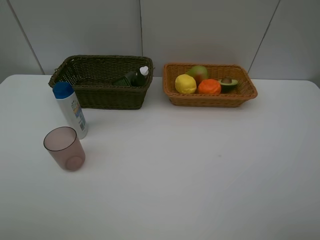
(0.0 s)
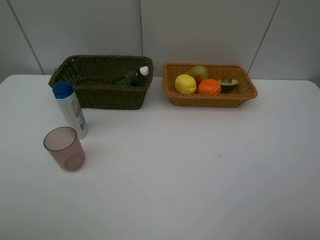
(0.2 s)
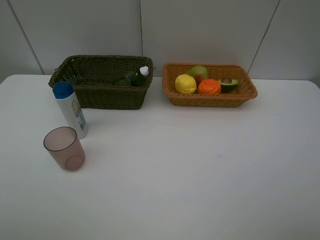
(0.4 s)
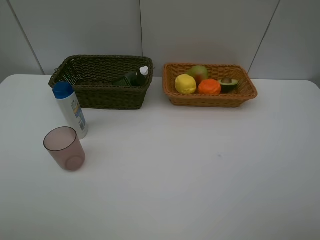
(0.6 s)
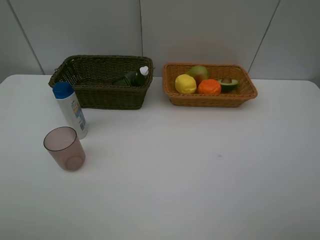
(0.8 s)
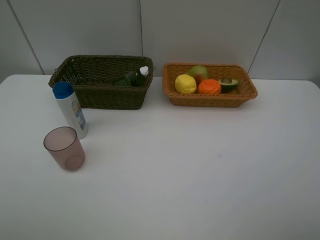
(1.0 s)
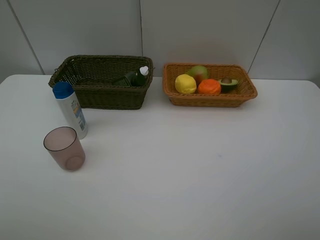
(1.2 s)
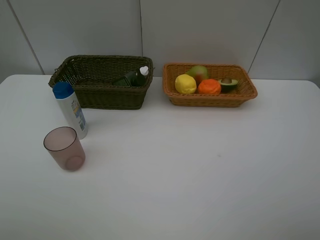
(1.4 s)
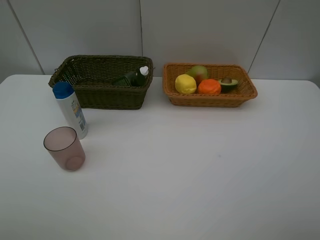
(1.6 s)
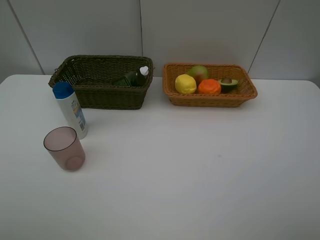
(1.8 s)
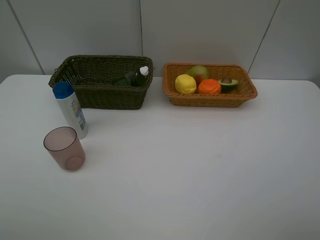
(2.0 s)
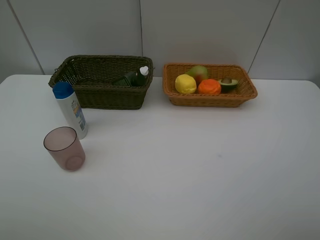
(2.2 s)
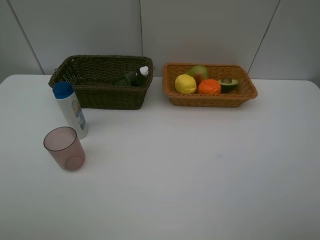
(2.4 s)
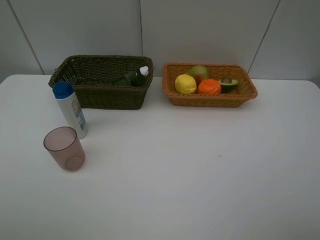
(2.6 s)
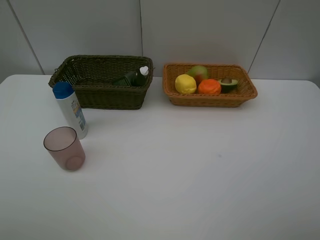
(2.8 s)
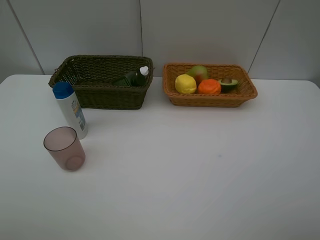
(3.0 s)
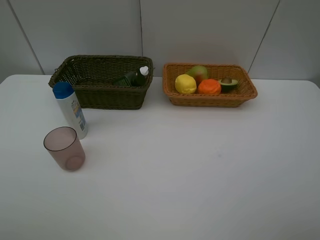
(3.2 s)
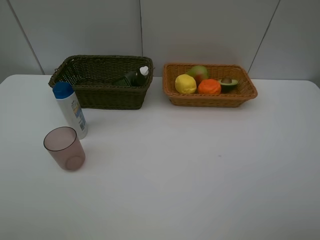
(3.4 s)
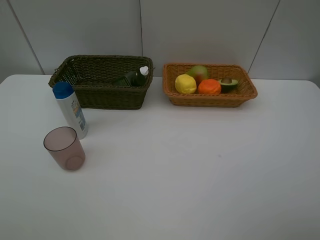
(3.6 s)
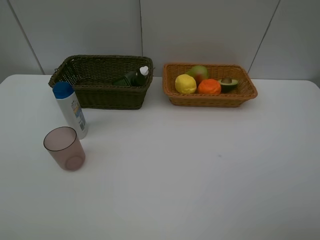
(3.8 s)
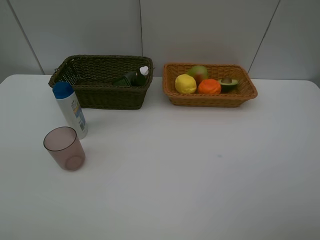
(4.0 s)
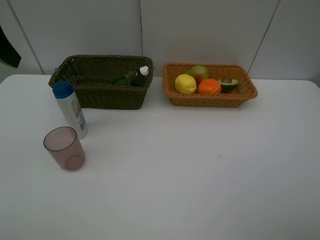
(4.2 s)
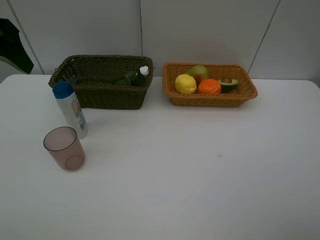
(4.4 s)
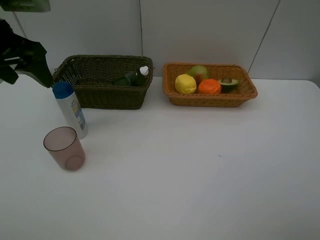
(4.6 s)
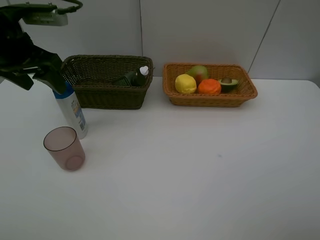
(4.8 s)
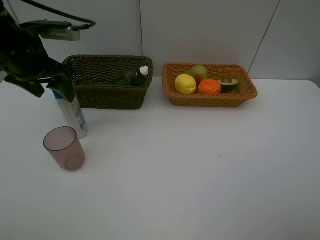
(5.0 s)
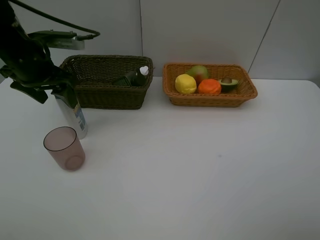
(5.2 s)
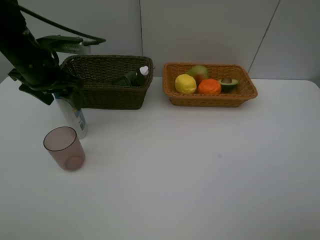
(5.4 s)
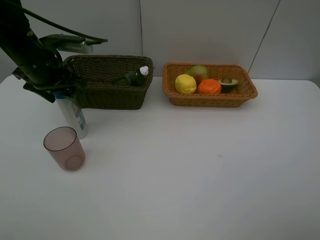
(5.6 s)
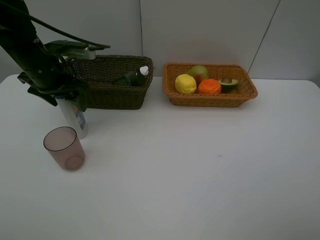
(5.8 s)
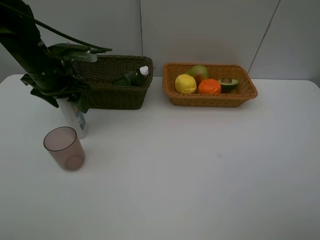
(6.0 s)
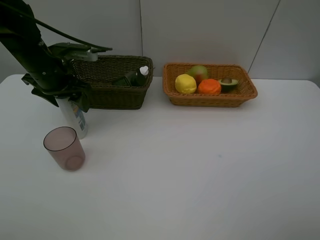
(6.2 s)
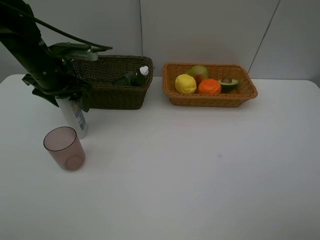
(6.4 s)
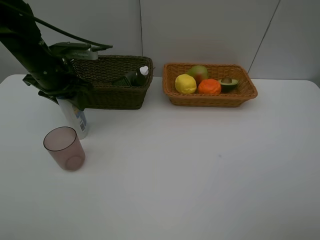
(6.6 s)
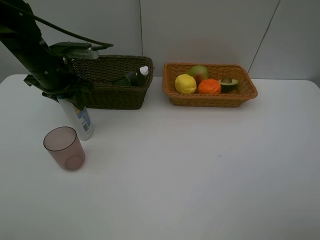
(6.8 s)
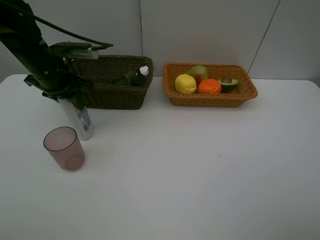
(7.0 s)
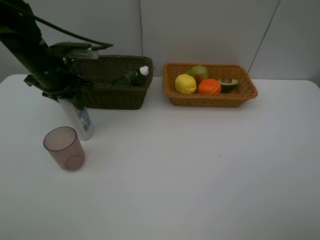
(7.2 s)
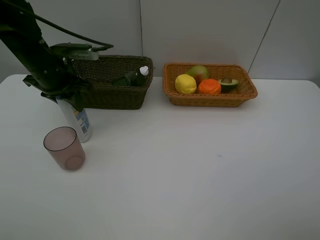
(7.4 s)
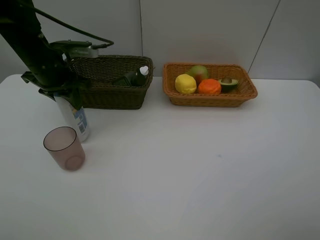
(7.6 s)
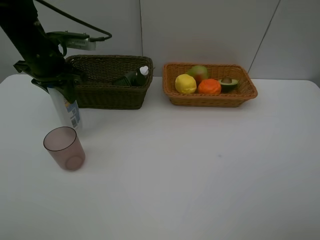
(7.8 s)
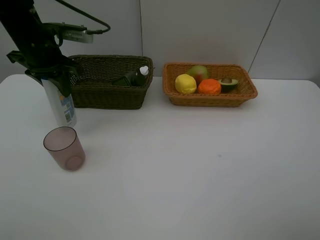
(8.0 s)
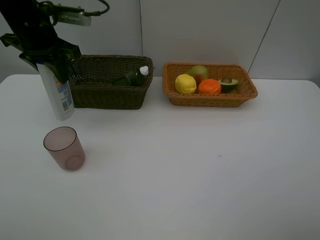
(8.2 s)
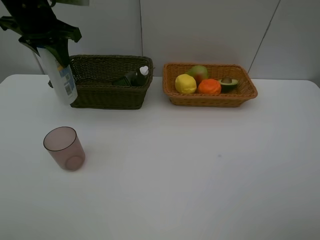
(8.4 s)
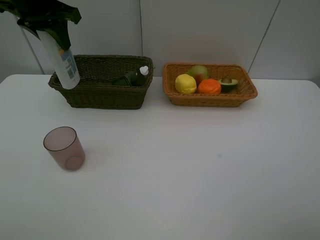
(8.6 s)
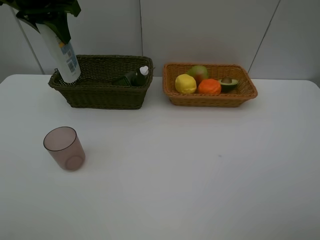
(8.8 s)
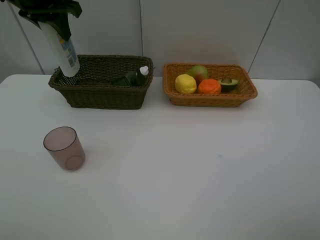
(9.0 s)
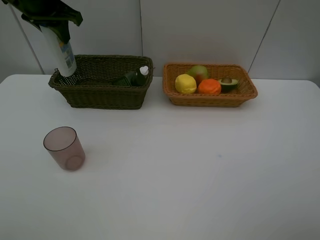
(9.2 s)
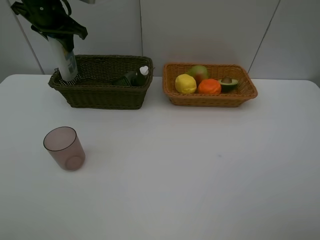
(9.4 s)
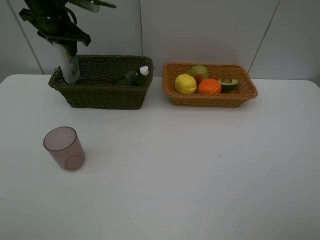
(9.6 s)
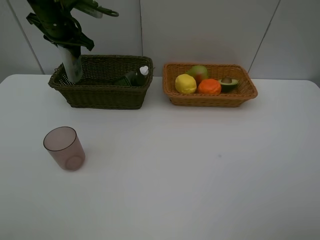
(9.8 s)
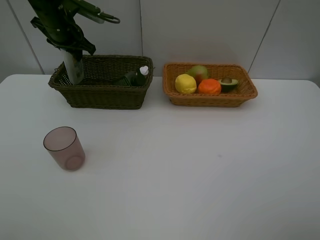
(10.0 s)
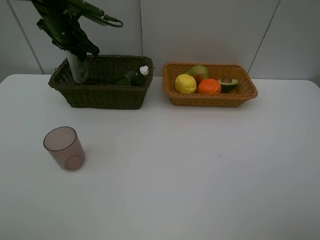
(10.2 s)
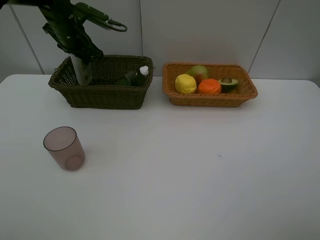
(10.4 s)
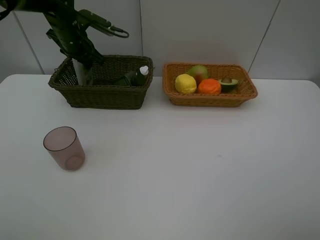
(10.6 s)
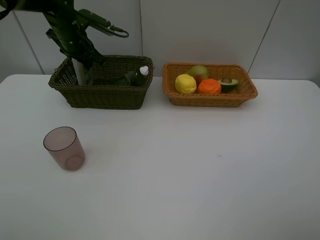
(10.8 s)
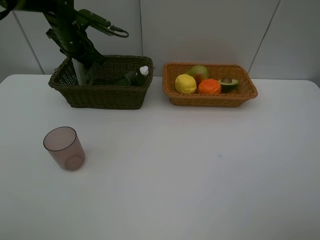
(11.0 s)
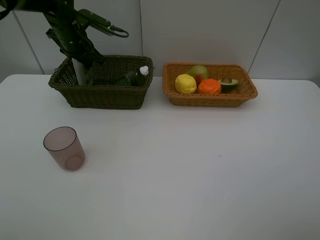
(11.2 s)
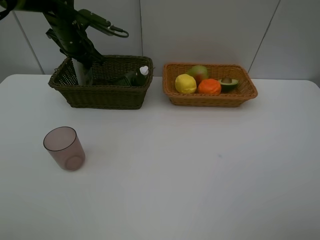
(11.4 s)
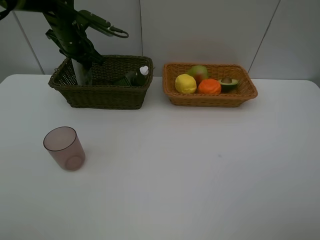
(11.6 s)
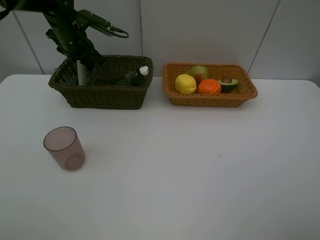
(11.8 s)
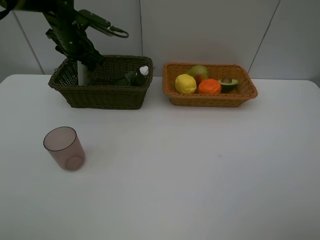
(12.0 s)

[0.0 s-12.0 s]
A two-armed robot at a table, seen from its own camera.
Task of the whole recording: Place multiple objects separately in different baskets.
Step, 0.0 to 7.8 s: Pick up the shampoo with left gripper.
1.6 to 3.0 s: Both grippers stay put.
3.0 to 4.4 s: The left gripper moves forward, roughly 25 cm.
4.4 to 6.0 s: The left gripper shifts some 15 cm downward and forward.
6.0 to 7.6 s: The left gripper closes.
7.6 to 9.0 s: The left gripper is displaced upward and forward by about 15 cm.
9.0 to 10.4 s: The left gripper travels downward and forward by approximately 15 cm.
10.4 to 12.0 s: Both grippers stay about where they are.

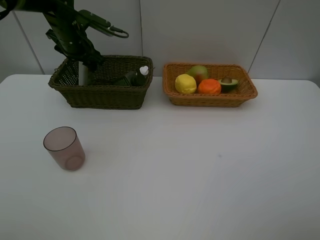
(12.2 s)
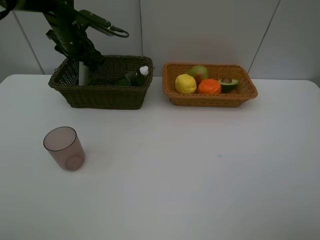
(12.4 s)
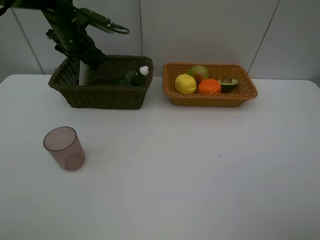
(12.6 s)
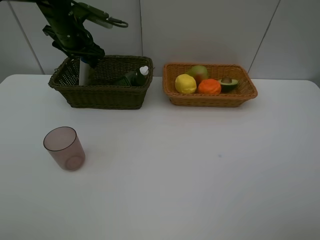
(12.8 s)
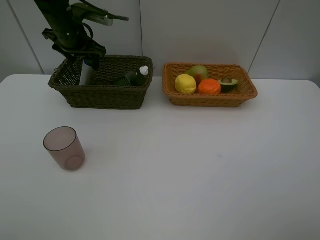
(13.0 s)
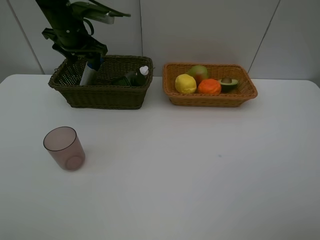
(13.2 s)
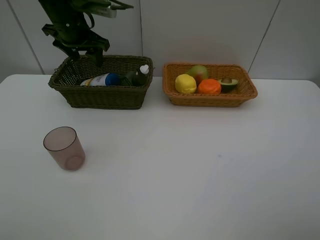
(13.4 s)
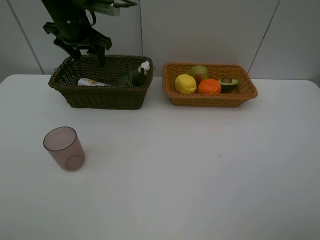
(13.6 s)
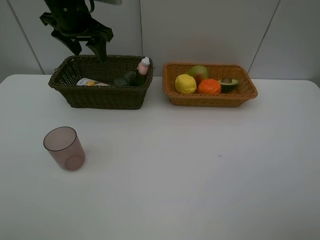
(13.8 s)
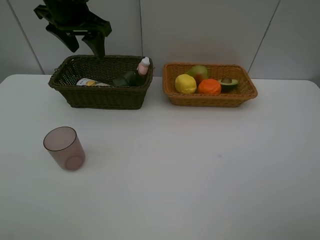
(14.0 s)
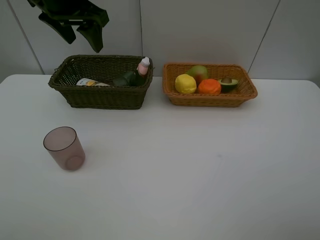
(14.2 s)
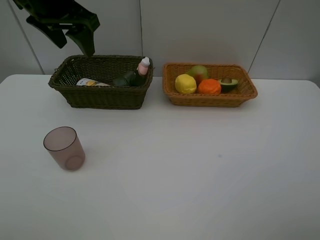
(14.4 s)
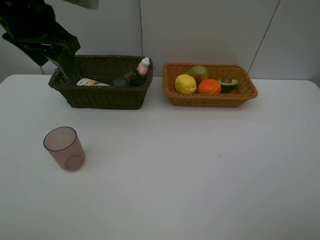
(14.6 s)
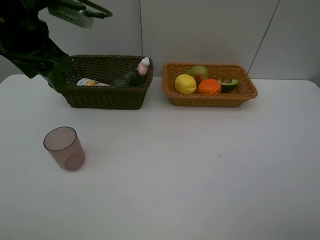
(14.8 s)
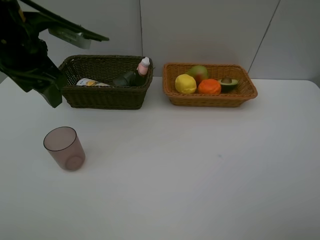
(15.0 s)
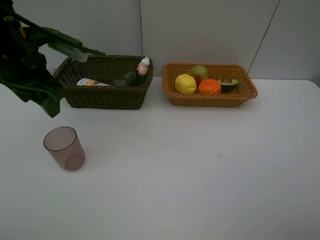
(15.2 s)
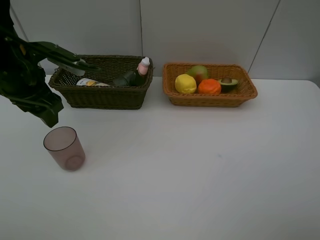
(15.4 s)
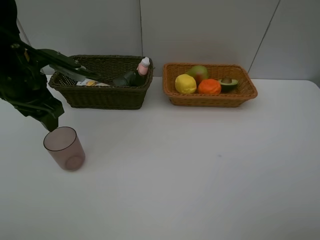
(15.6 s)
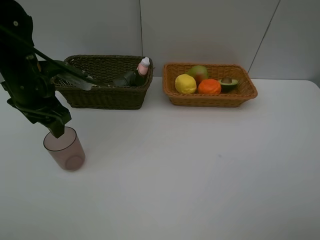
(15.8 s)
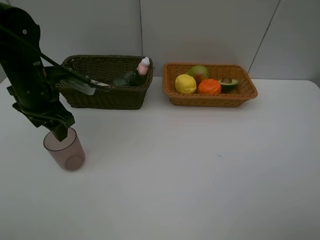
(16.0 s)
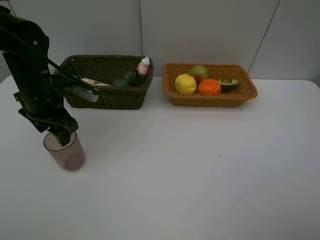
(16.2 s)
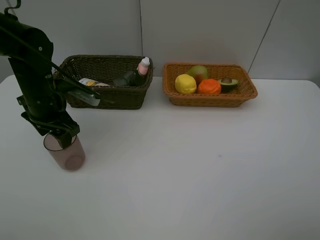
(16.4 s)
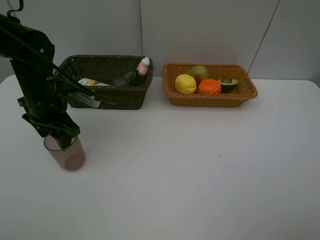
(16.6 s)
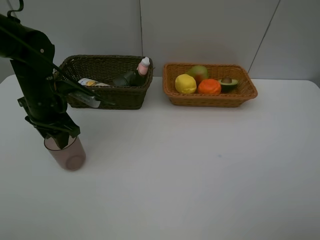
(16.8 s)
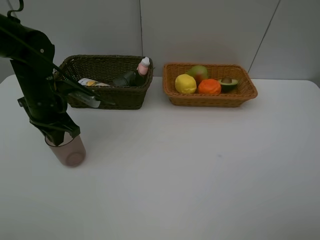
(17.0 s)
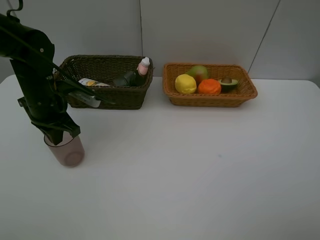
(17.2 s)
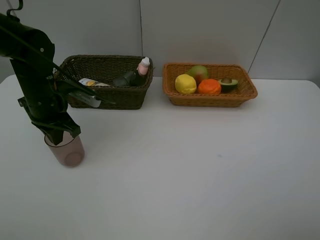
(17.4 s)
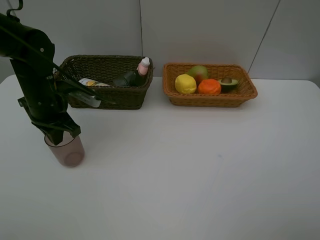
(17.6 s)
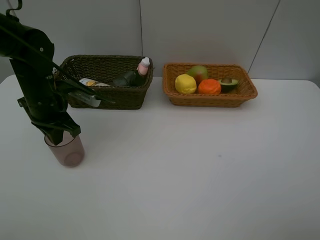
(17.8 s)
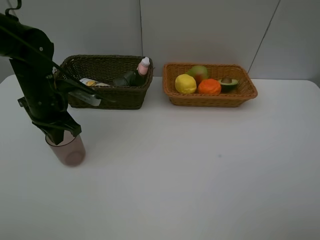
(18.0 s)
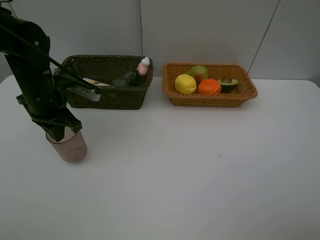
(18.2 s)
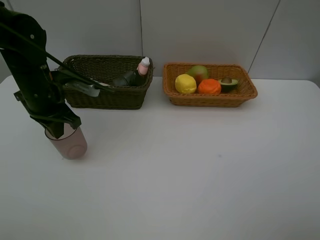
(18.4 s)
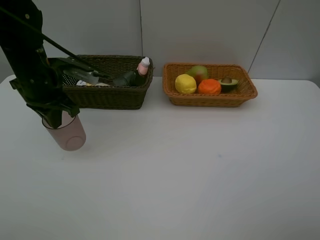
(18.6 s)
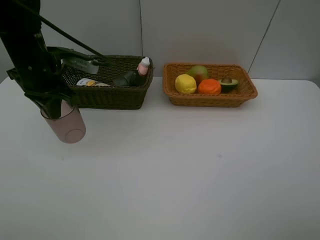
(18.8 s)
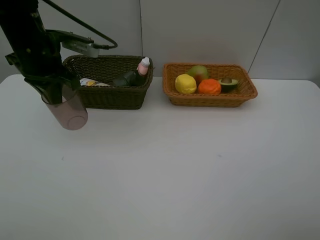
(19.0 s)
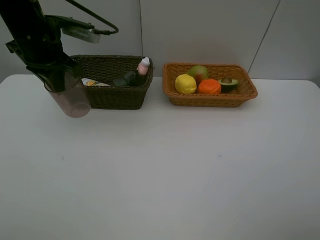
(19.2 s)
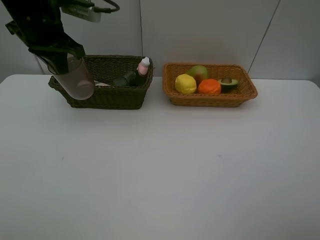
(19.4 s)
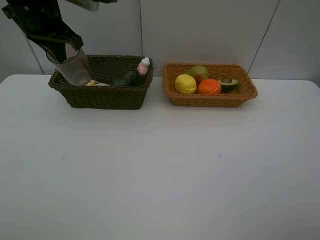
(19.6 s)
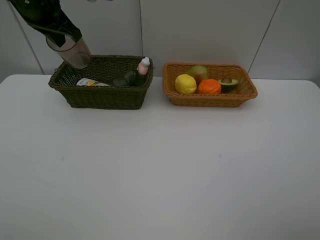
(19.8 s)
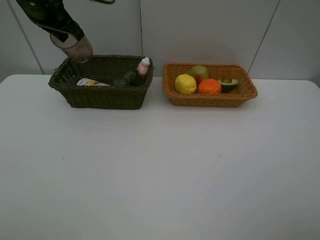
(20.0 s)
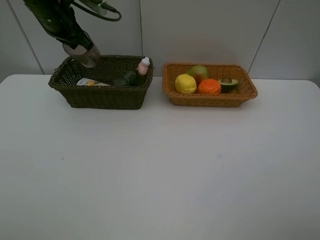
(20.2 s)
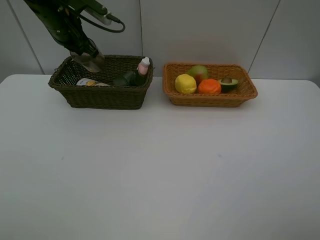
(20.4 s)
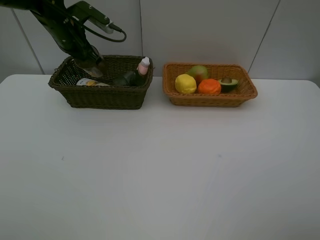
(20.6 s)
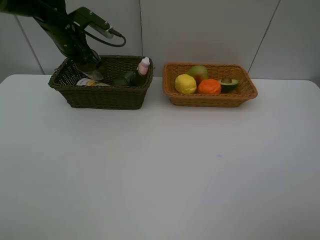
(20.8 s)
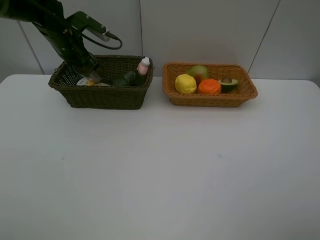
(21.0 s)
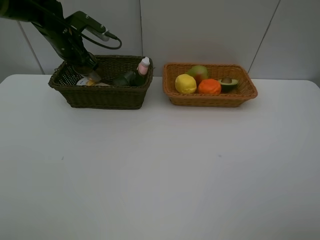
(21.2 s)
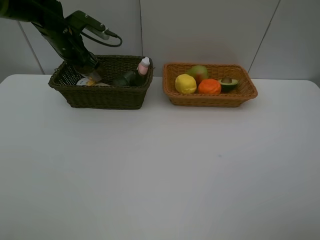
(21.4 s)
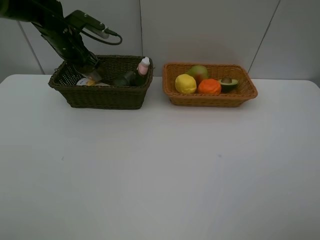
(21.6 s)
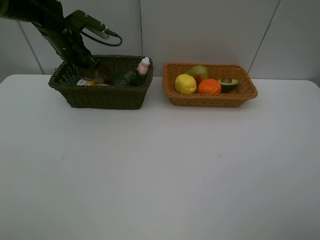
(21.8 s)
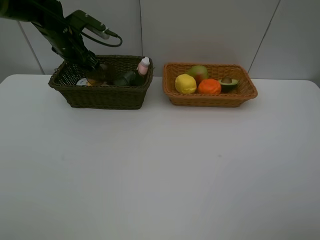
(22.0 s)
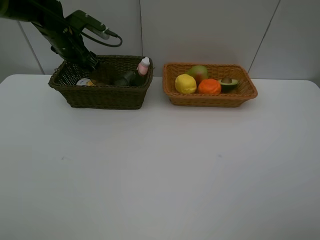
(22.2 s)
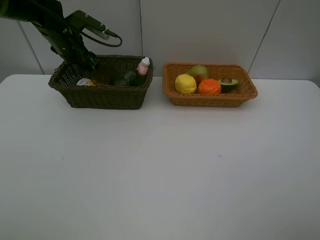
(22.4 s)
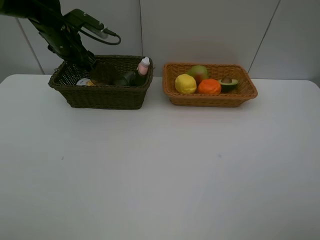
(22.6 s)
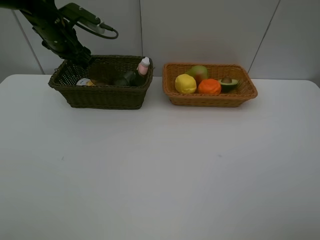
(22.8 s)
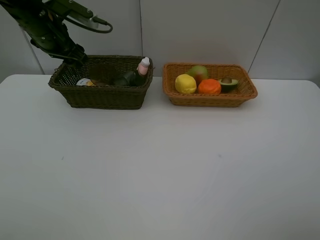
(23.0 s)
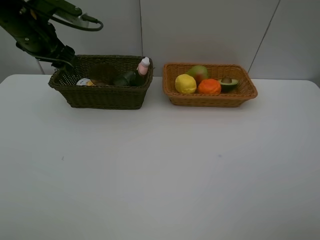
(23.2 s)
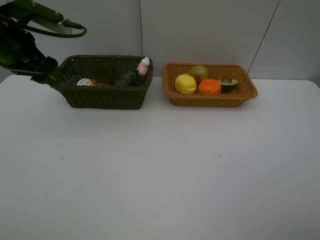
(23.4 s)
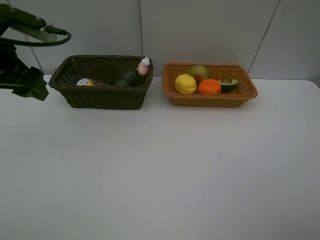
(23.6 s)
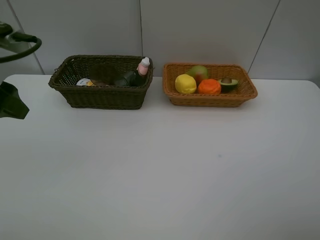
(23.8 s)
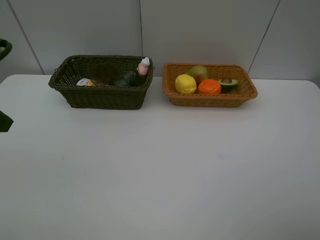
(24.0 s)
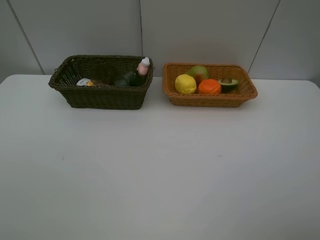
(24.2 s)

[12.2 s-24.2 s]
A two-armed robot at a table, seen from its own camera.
Task of the whole recording: Place multiple objects separately in different baskets.
Step, 13.6 to 18.4 s: Pick up the red cup with left gripper.
Step, 18.6 to 22.6 s: Place the red cup in the dark basket with left gripper.
12.2 to 13.8 s: The left gripper heads upward and backward, covering some 10 cm.
13.8 to 15.2 s: The left gripper goes approximately 15 cm backward and to the left.
15.2 to 16.6 s: The left gripper goes some 10 cm downward.
16.6 to 18.2 s: The left gripper closes its fingers.
18.2 to 19.8 s: The left gripper travels upward and forward by some 15 cm.
19.8 to 21.2 s: The left gripper heads downward and forward, covering about 15 cm.
21.2 to 22.6 s: The left gripper opens its fingers.
22.6 to 24.2 s: The left gripper is displaced backward by some 35 cm.
